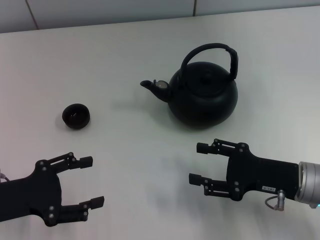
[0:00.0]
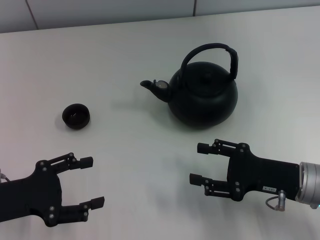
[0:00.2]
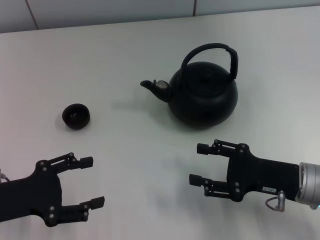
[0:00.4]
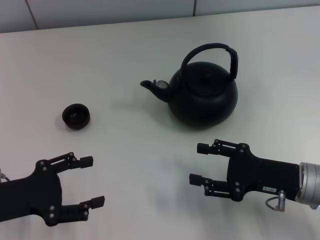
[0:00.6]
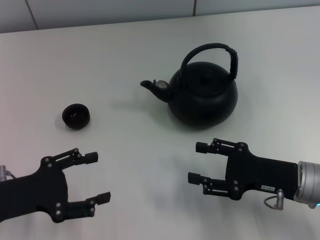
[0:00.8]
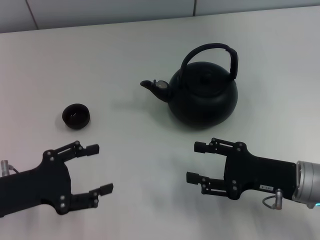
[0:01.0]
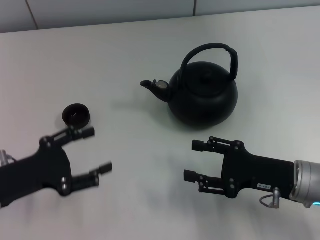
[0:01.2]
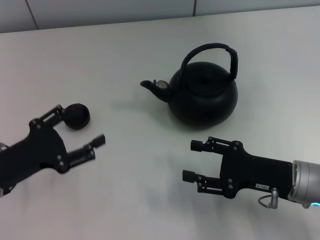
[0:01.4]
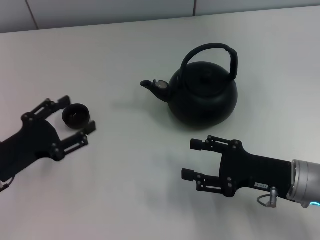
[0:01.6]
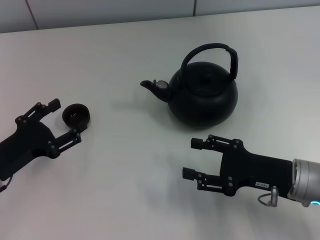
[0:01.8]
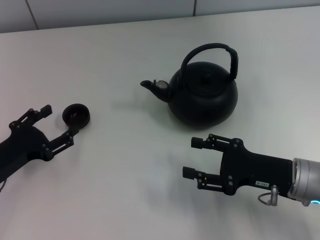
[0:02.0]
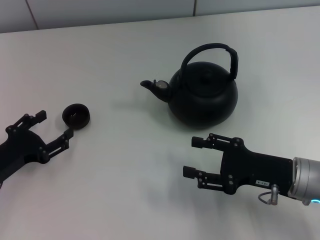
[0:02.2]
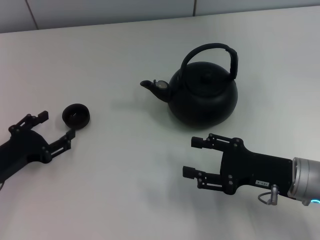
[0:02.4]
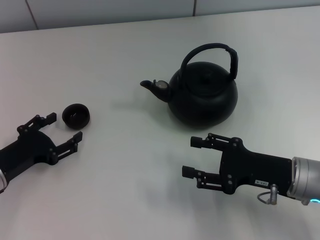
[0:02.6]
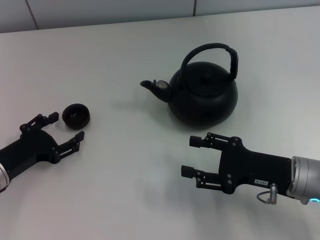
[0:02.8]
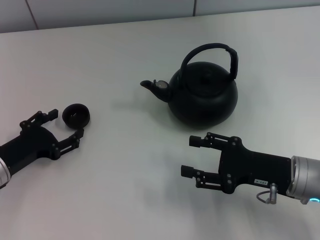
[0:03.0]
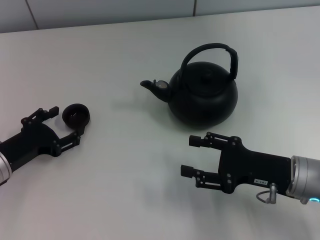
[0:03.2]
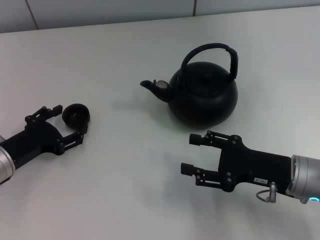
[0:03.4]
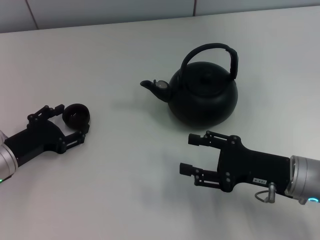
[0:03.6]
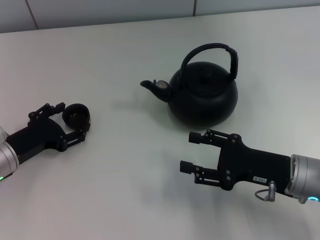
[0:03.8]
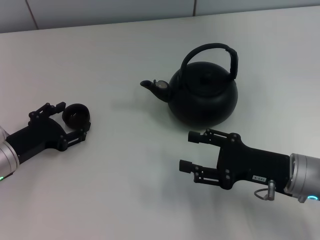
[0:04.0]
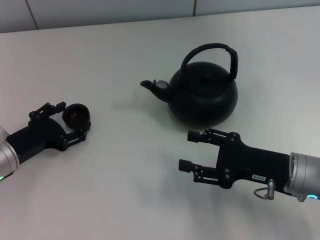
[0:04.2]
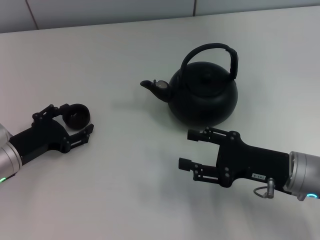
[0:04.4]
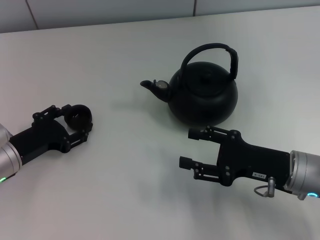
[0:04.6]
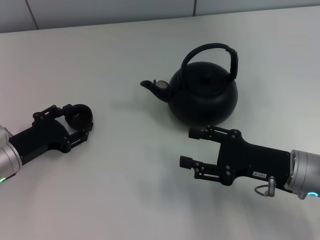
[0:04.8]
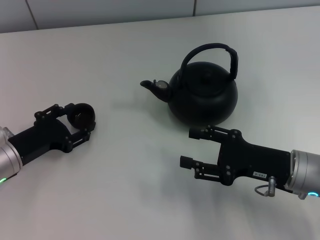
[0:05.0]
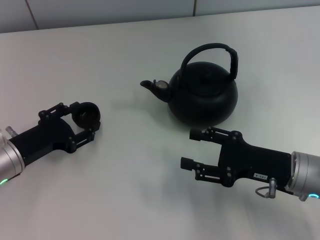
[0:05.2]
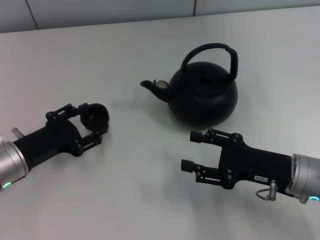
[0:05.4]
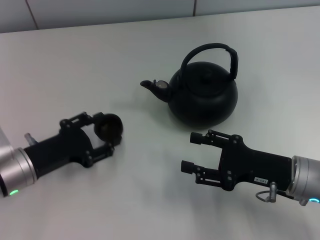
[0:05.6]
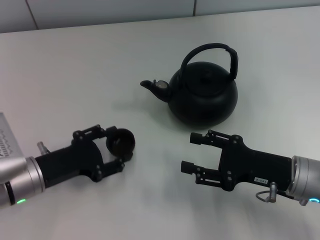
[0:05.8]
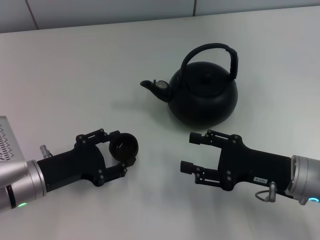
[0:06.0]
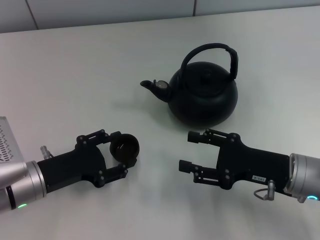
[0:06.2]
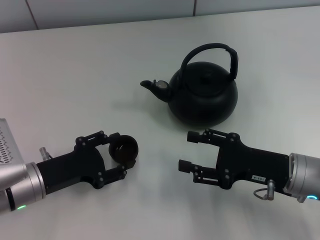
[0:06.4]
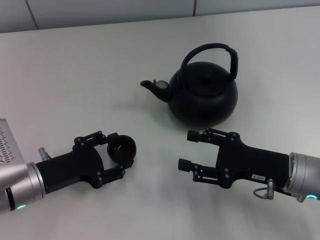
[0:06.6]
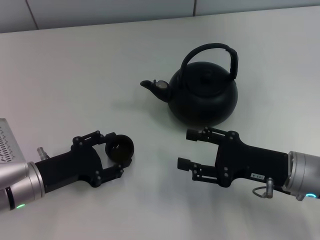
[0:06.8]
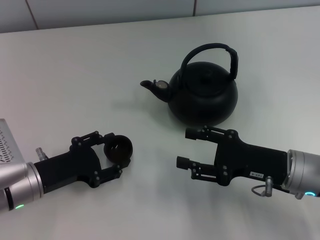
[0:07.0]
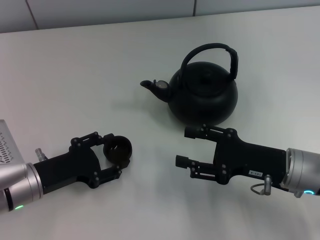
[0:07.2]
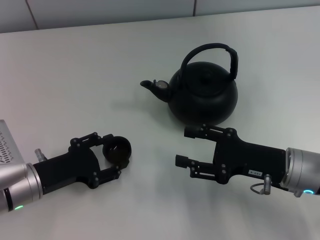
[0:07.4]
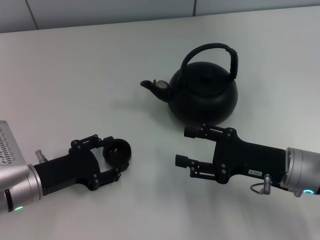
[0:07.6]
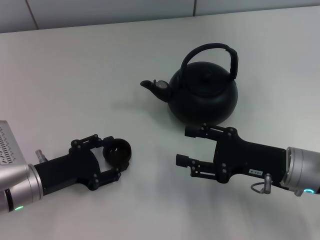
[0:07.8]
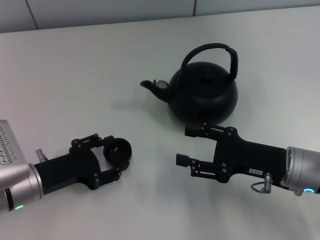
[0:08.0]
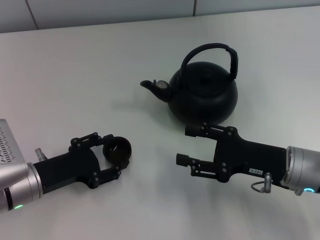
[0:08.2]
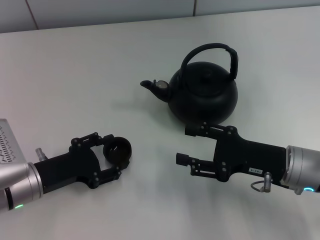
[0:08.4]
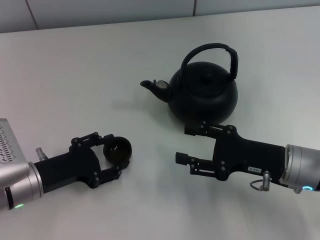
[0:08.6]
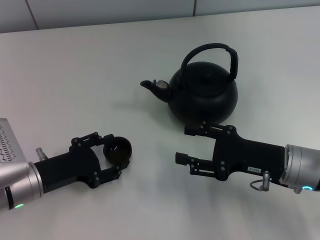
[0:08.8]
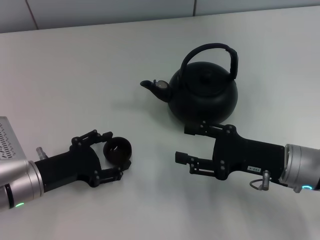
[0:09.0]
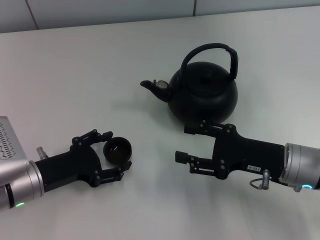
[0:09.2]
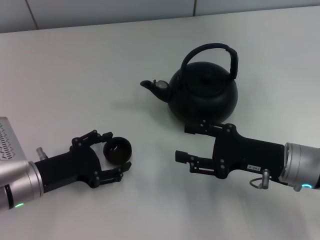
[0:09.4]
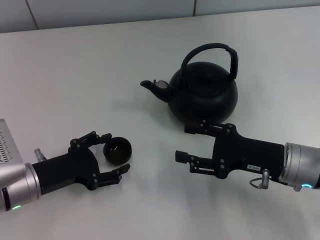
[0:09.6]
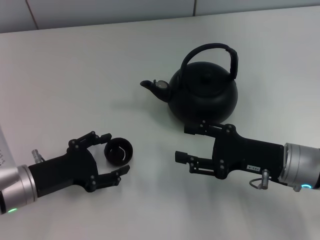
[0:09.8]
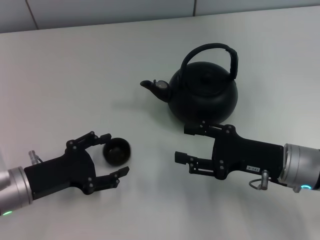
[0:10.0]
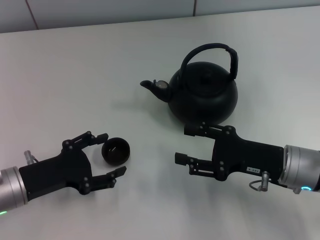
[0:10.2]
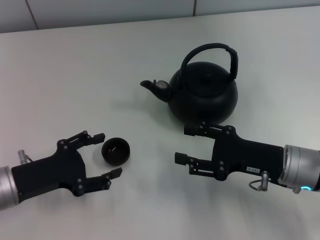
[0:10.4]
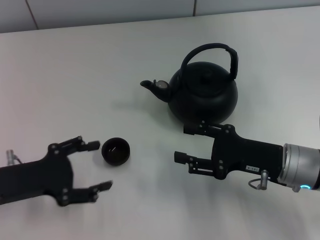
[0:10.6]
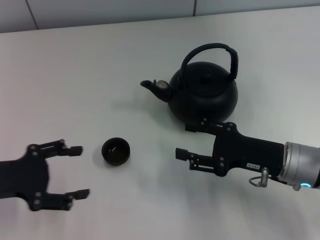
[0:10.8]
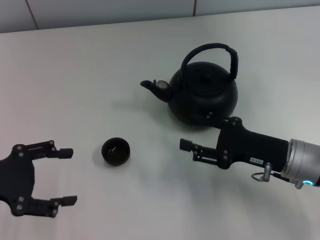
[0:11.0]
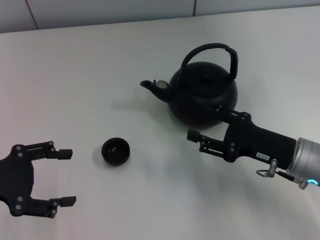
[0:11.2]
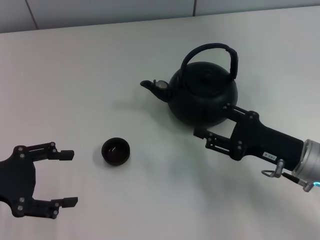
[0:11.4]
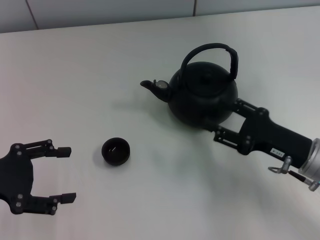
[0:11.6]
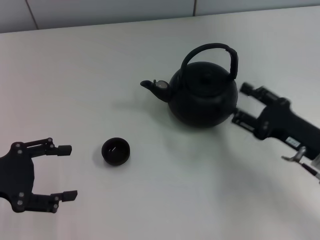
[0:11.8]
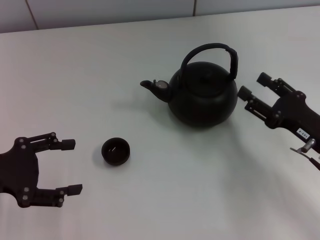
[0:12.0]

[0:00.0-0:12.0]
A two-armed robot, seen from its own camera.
Task of the whole recording: Grasp the handle of the teapot with one hand and pour tea into the teacup.
Step, 0:00.0 to 0:05.4: Pick up the teacup with the left gripper.
Step, 0:05.6 to 0:09.6: Place the teacup in the center of view with the left gripper.
0:01.6 to 0:03.0: The grippers move only a little.
0:03.0 to 0:04.4: There are only small adjustments of the grippers.
0:04.4 to 0:06.0: The left gripper closes its fingers.
0:06.0 to 0:07.6: Both grippers stay put.
0:07.6 to 0:09.0: The two grippers keep their place.
0:09.0 to 0:10.4: The left gripper opens.
0:10.4 to 0:12.0: The right gripper shifts roughly 5 cm to the right, while the left gripper is displaced upward and to the left by approximately 10 cm.

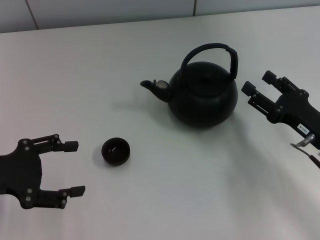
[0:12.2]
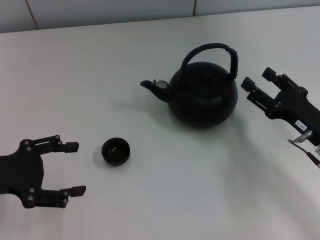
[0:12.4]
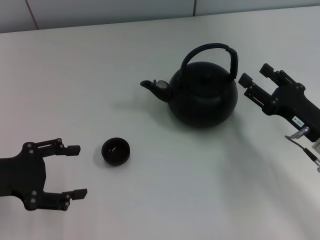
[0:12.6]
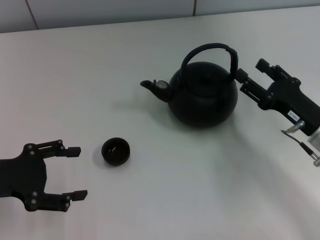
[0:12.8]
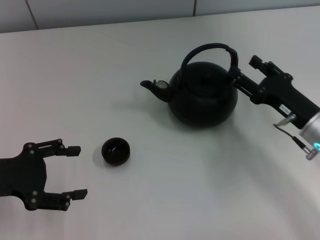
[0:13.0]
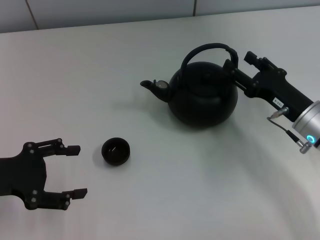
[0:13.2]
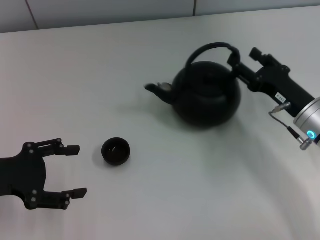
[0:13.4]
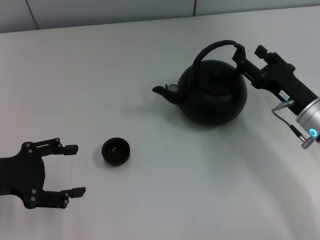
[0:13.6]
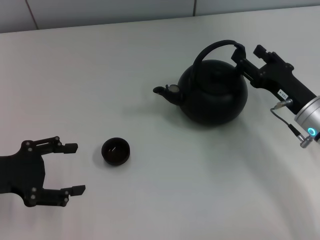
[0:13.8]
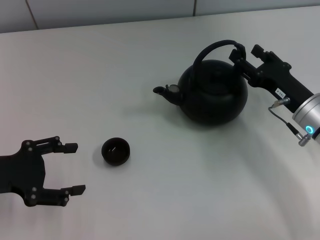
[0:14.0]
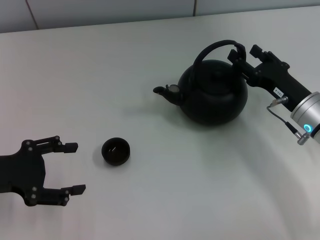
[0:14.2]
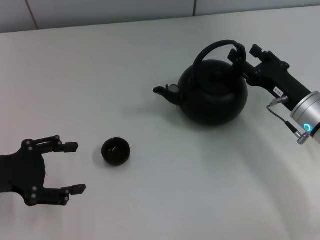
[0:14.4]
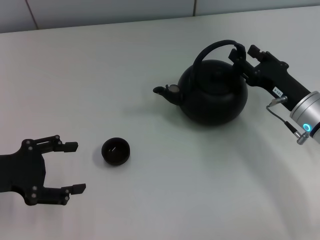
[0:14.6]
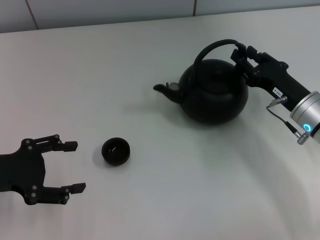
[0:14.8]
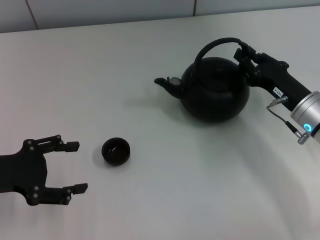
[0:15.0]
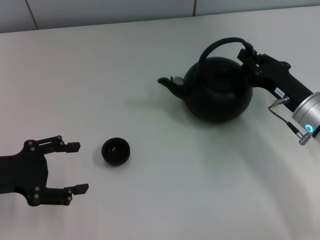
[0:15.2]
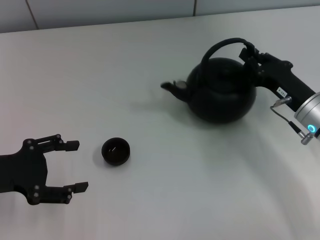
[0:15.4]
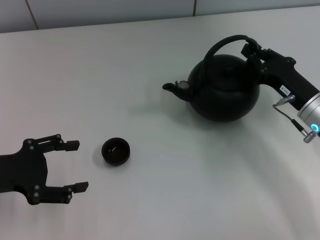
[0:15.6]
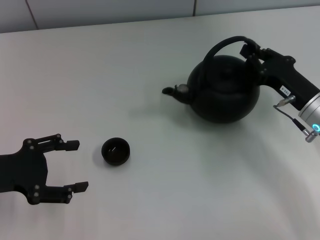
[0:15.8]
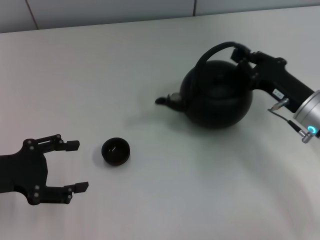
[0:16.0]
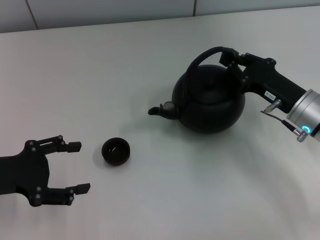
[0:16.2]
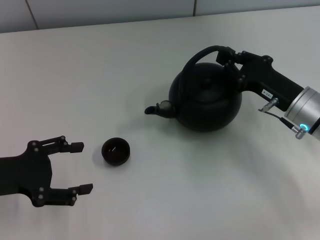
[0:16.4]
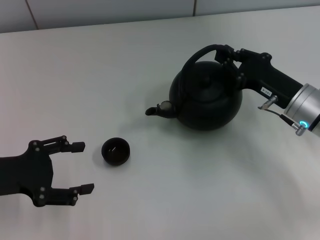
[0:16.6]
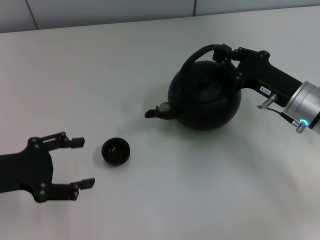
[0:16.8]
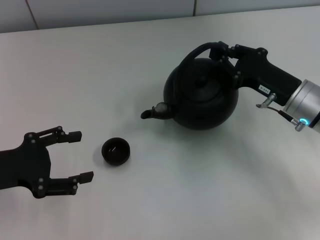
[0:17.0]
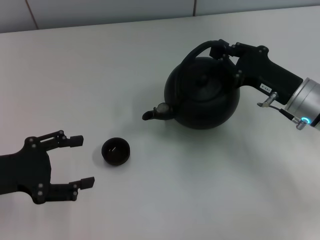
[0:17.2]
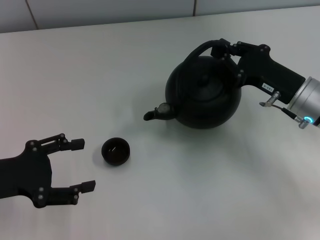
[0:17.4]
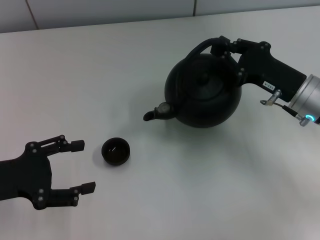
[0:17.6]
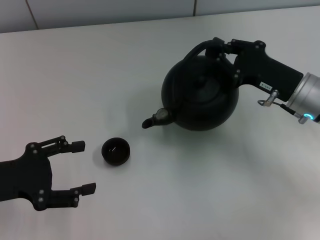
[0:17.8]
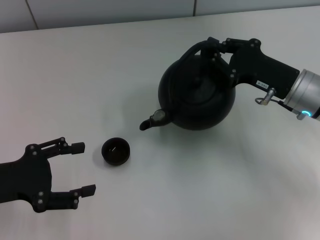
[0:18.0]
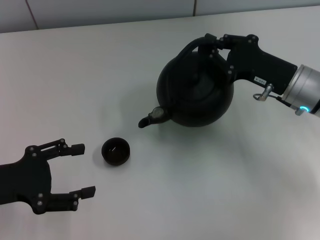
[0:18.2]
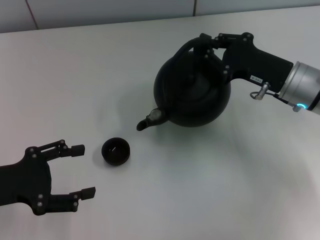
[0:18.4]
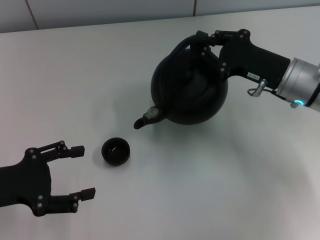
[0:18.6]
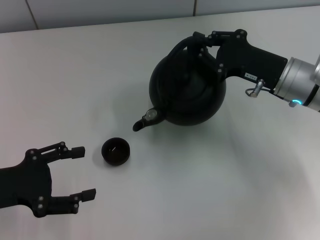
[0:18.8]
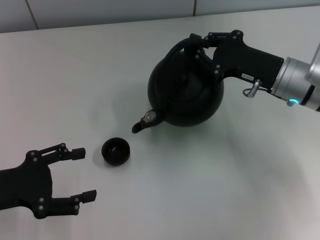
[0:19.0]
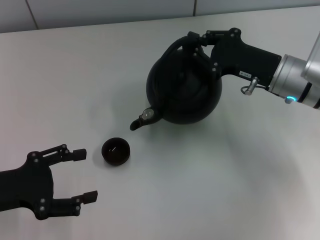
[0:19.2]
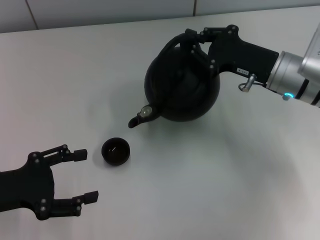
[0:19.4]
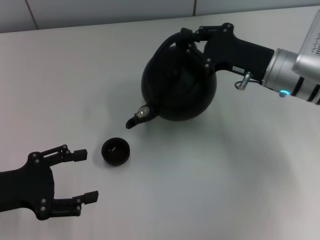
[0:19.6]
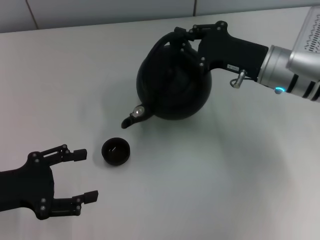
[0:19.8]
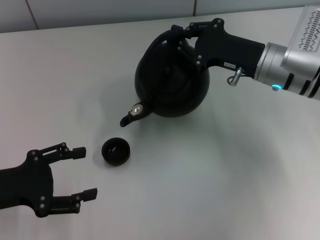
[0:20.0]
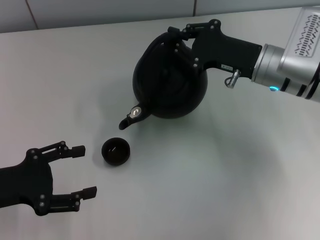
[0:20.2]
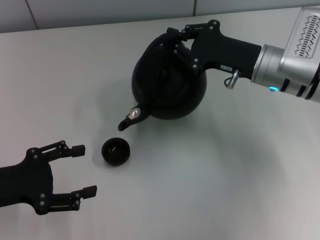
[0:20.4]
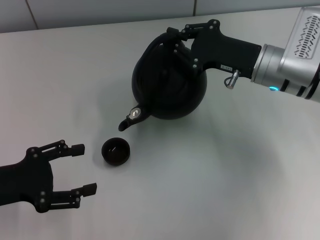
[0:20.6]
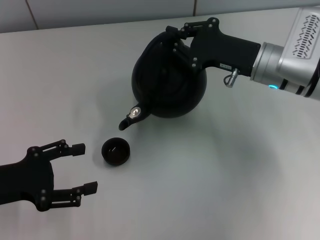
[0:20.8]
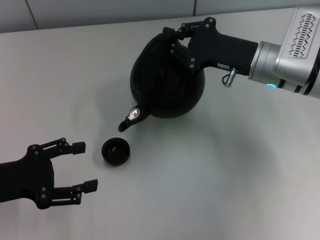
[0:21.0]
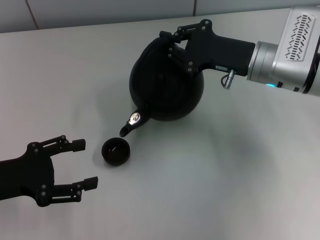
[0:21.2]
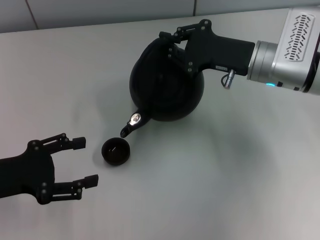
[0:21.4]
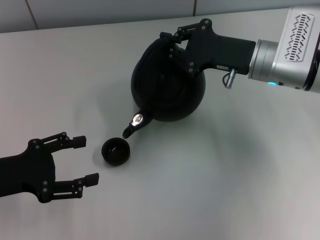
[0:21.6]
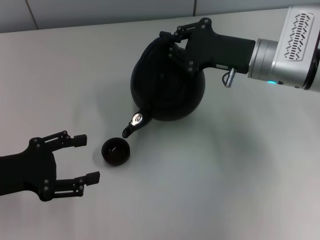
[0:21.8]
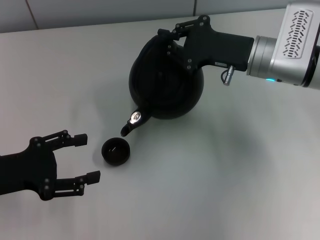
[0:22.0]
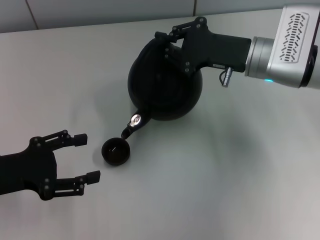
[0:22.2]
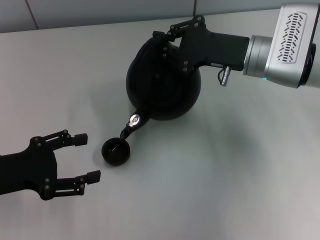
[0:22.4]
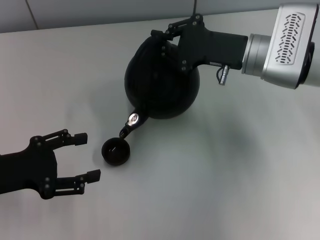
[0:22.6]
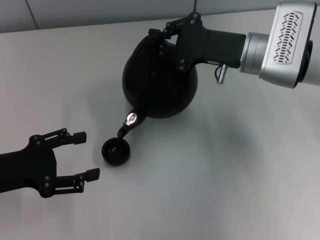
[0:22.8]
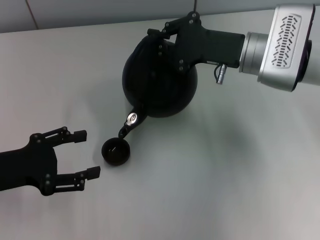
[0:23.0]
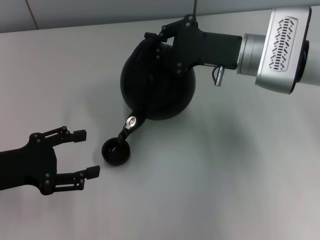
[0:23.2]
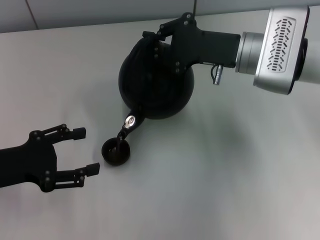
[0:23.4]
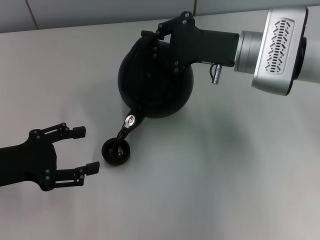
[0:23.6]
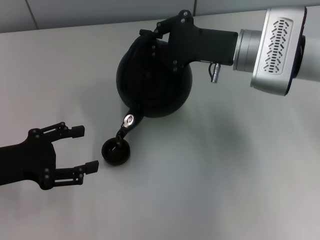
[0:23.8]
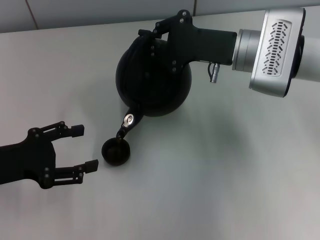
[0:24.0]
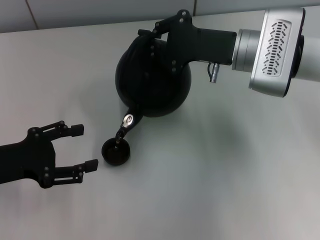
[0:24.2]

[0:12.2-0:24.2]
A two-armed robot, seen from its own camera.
Task of the whole recording: Grasp the handle of the teapot with one hand and pour tea into the teacup.
Step, 0:12.2 to 0:17.4: Pick up the teapot with the right gripper.
0:12.2 to 0:13.8: The right gripper shifts about 5 cm forward.
0:13.8 to 0:15.2: The right gripper closes.
0:15.2 to 0:16.6: The grippers move only a little.
0:16.6 to 0:18.2: The grippers move only a little.
0:18.2 to 0:19.8: There are only small adjustments of the grippers.
0:19.8 to 0:22.6: There are only small adjustments of the grippers.
0:22.6 to 0:24.2: There are only small adjustments of the grippers.
